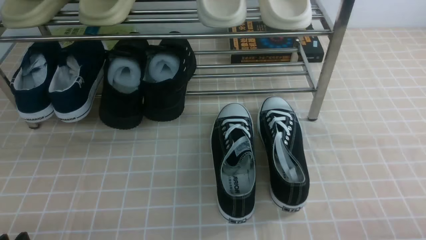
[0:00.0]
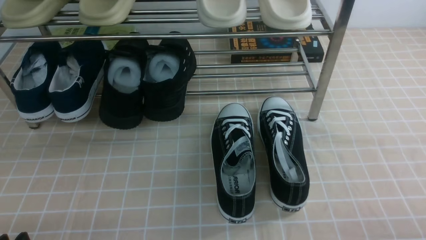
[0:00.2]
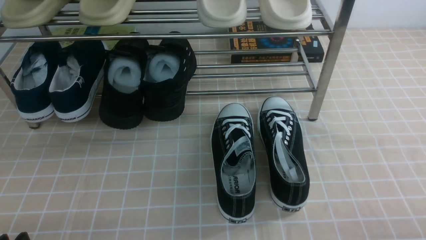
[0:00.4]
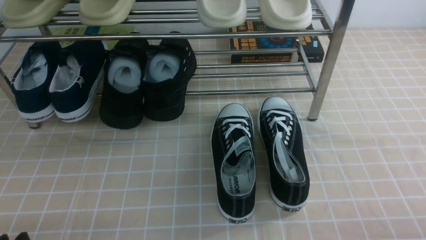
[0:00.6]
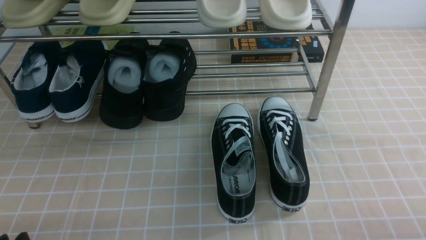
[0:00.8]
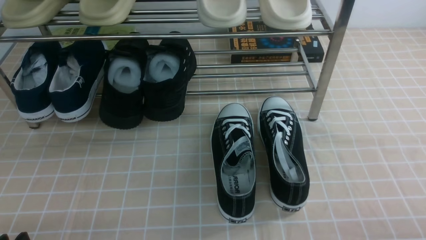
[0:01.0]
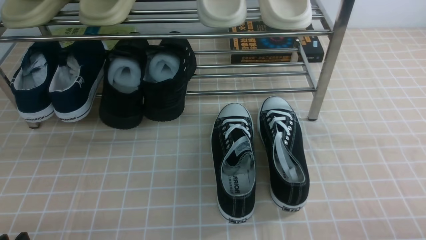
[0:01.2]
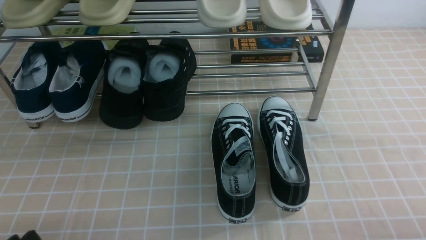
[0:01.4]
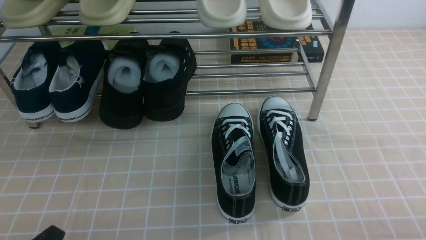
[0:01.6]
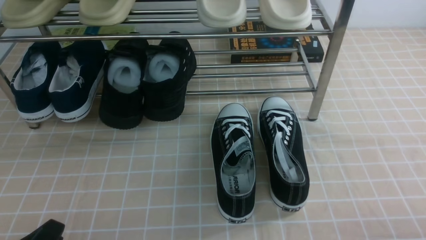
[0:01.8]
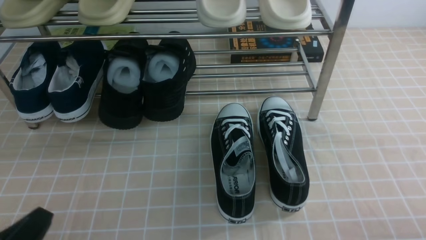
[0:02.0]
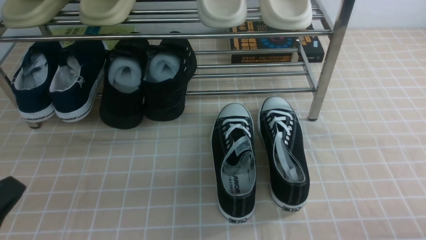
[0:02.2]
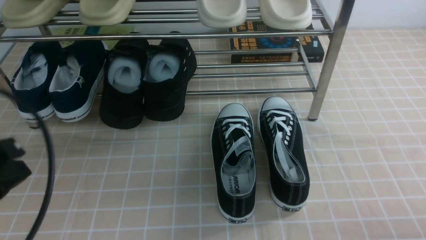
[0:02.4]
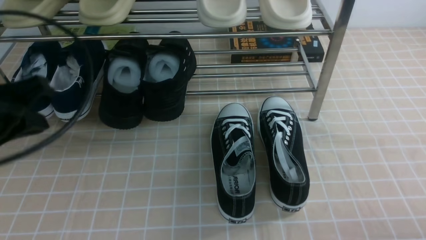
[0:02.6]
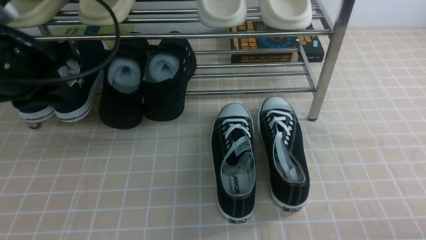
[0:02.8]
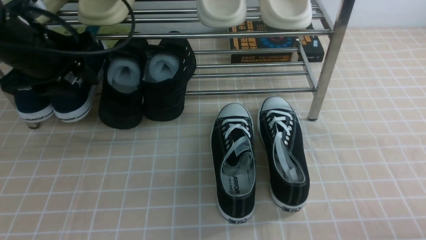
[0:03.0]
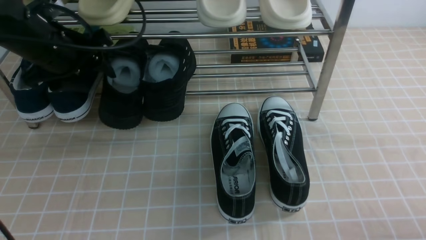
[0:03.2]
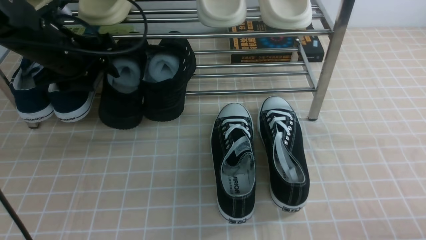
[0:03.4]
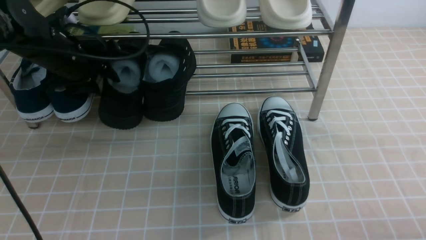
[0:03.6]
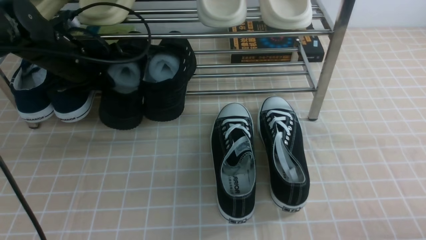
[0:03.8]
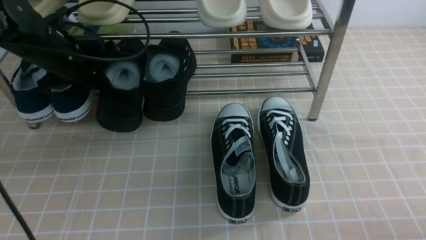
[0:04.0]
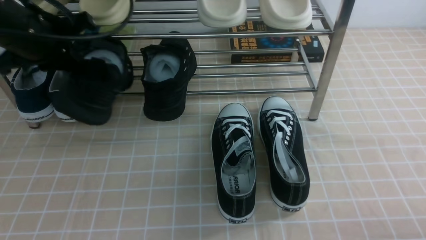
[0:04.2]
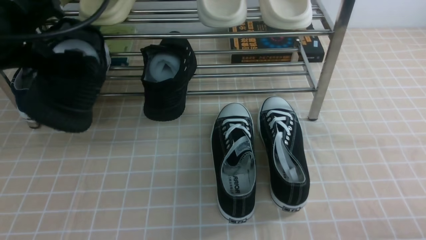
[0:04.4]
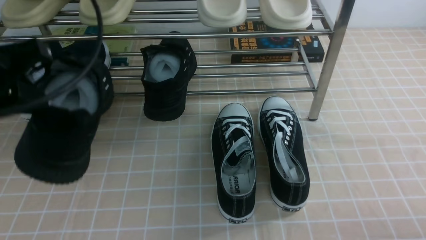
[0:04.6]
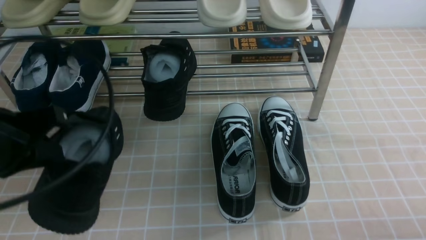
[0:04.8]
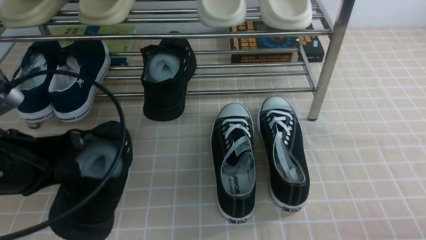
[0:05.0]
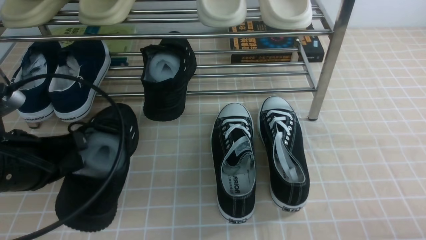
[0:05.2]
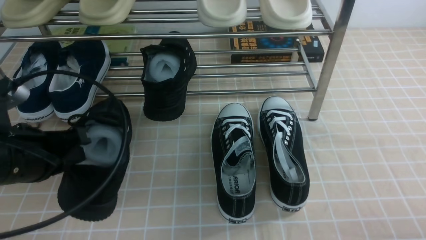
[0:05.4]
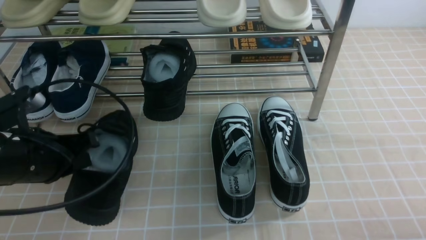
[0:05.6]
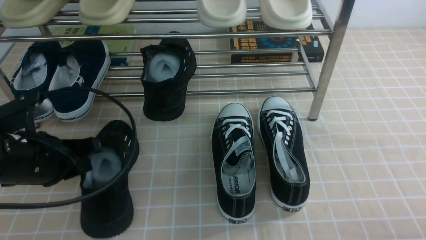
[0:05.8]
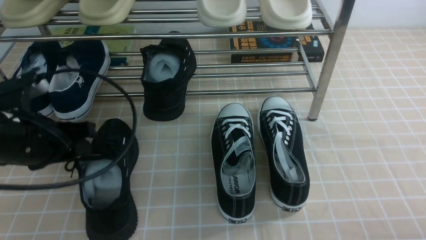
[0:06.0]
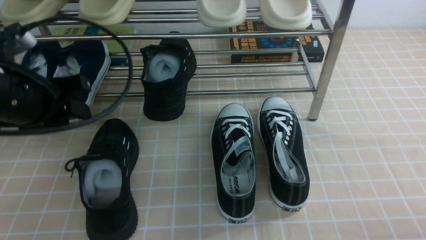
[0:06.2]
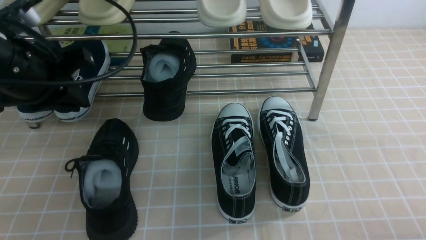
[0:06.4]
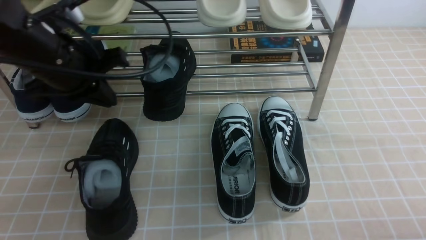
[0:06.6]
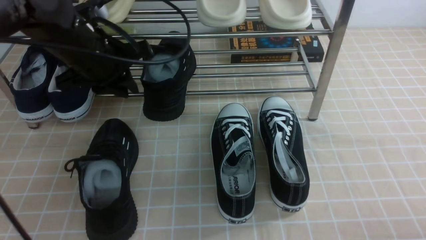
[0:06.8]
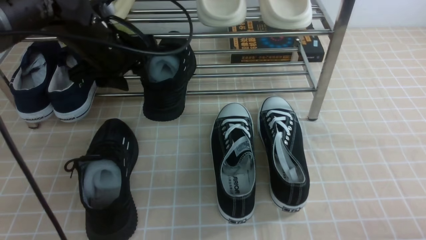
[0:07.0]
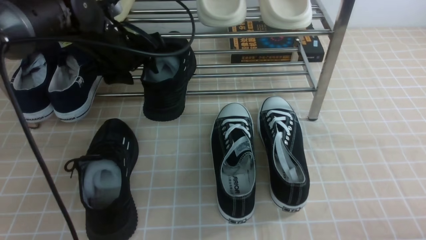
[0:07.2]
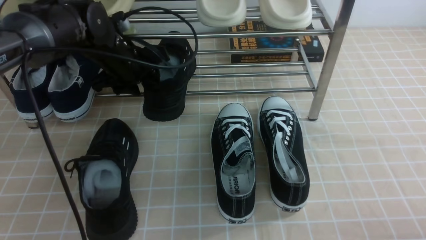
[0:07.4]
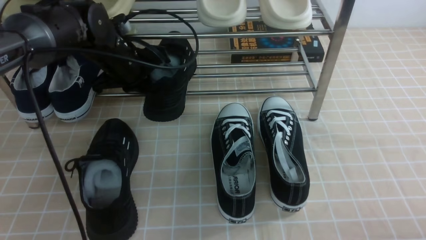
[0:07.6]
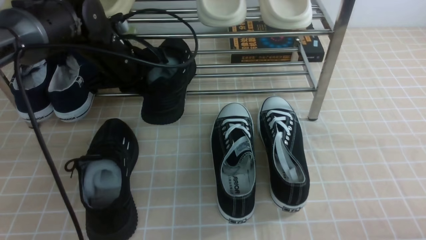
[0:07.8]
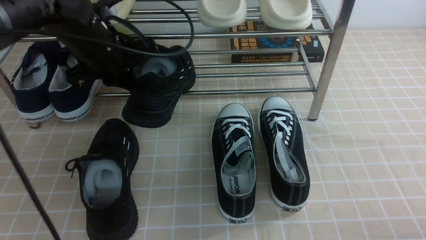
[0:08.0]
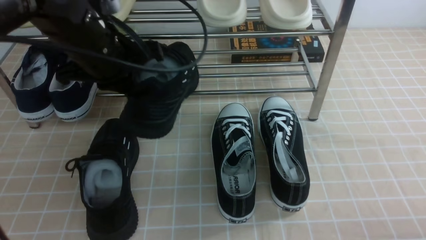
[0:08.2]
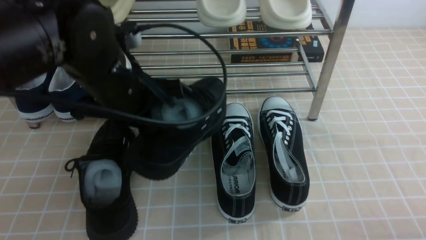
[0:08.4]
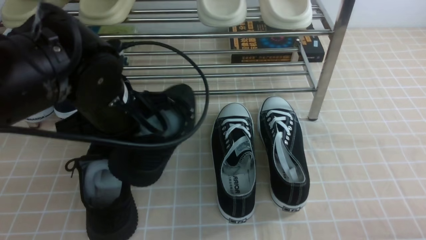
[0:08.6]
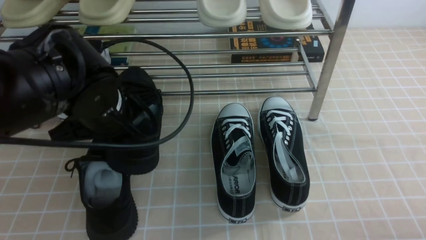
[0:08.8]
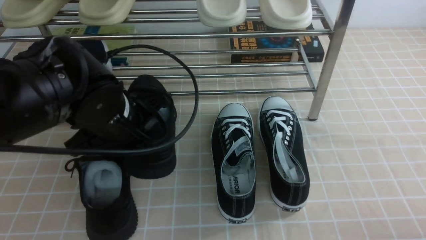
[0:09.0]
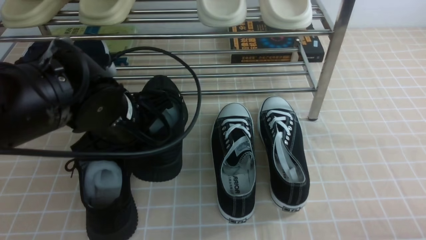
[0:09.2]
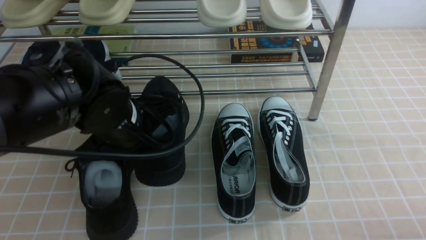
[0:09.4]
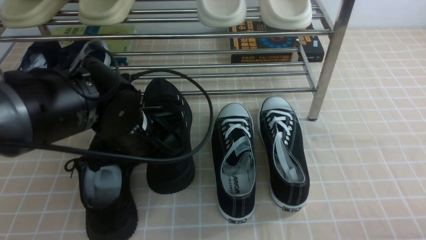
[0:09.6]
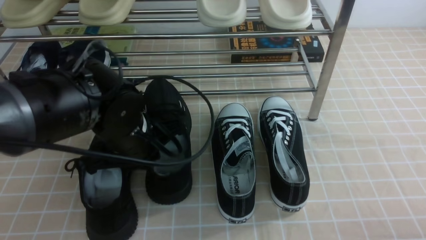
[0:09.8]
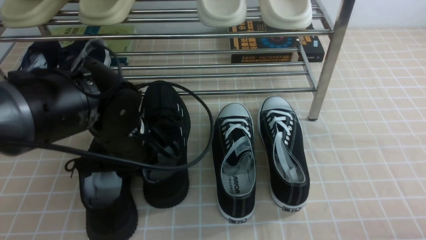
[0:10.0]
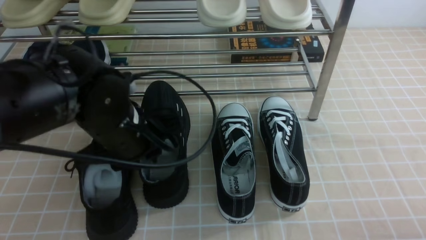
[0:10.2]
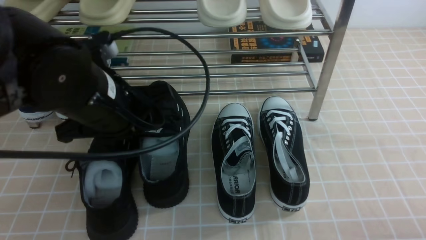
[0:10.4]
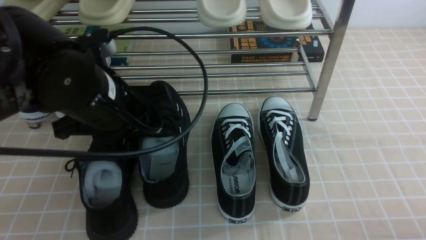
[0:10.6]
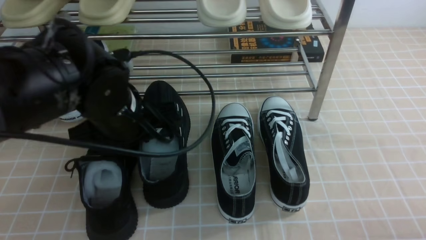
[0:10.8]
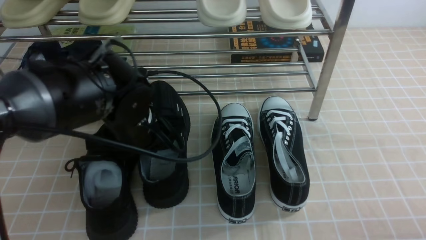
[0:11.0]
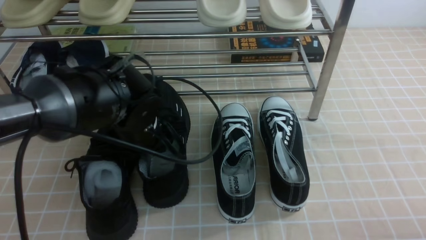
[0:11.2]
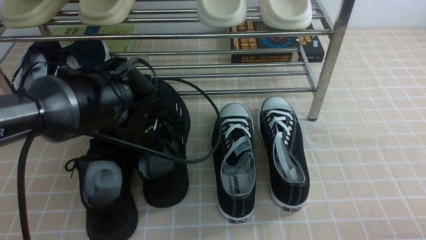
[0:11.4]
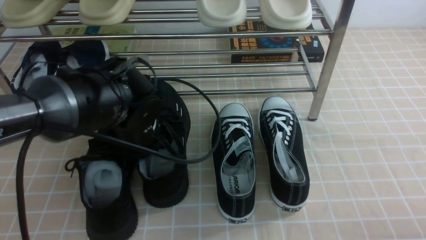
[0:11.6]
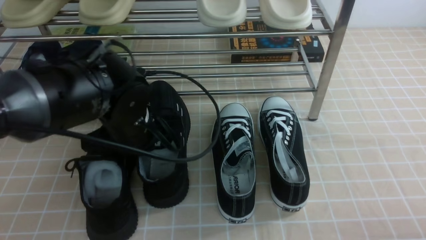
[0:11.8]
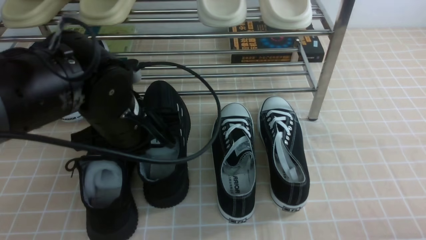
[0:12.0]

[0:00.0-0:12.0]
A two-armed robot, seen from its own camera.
Step, 0:00.0 to 0:03.6: use the left arm to clamp a shoe in the middle of the shoe rack.
Step, 0:03.8 to 0:06.2: Use your left arm to remove the clamped shoe from the shoe rack and put it down.
Step, 0:06.6 to 0:07.6: use the left arm to clamp a shoe in the middle of the shoe rack.
0:01.6 to 0:03.0: The left gripper heads forward and upward, covering approximately 30 cm, and closes, then opens again.
0:03.0 to 0:04.4: The left gripper is displaced backward and upward by approximately 10 cm, and closes up.
0:04.4 to 0:06.0: The left gripper goes roughly 10 cm downward, and opens up.
0:06.0 to 0:07.6: The left gripper shifts approximately 20 cm forward and to the right, and opens, then closes once more.
0:07.6 to 0:09.0: The left gripper is displaced backward by approximately 15 cm.
0:09.0 to 0:10.4: The left gripper opens.
0:10.4 to 0:12.0: The left gripper closes.

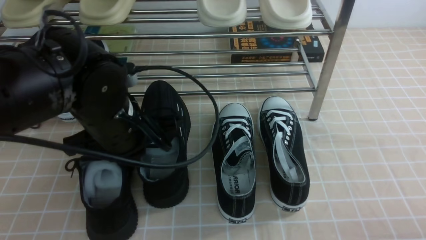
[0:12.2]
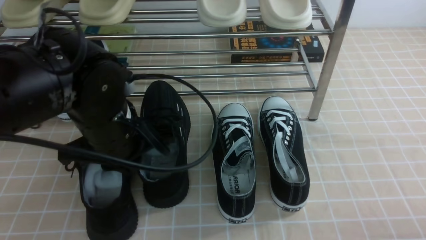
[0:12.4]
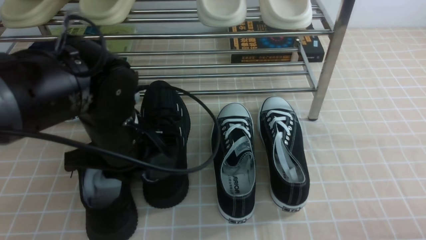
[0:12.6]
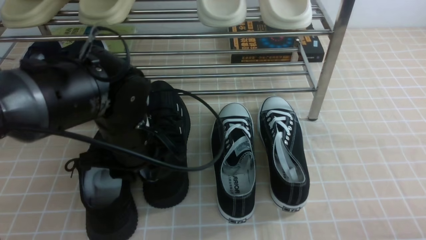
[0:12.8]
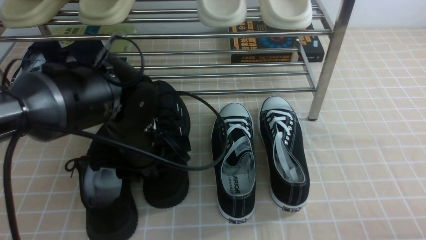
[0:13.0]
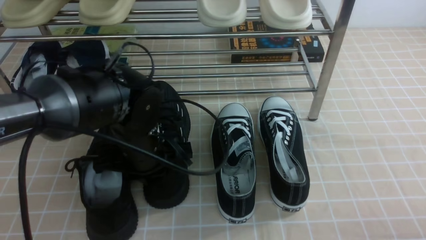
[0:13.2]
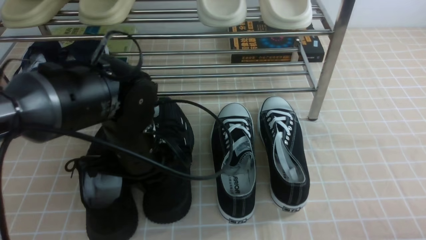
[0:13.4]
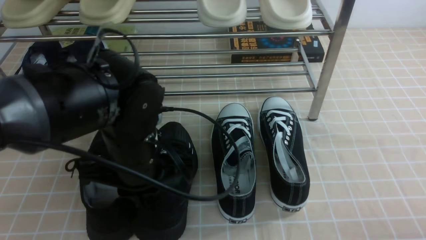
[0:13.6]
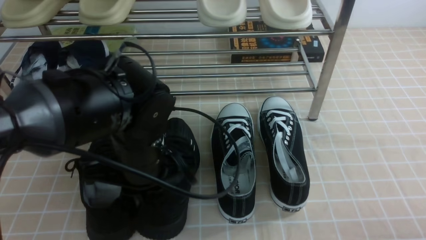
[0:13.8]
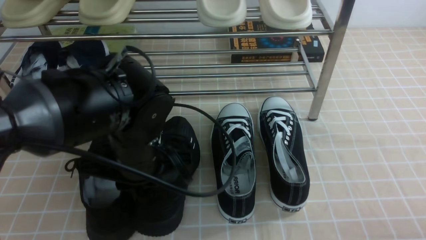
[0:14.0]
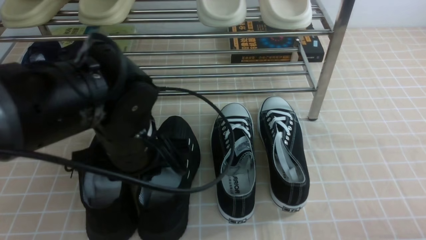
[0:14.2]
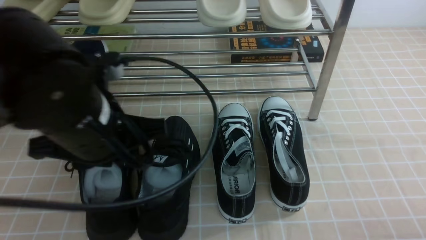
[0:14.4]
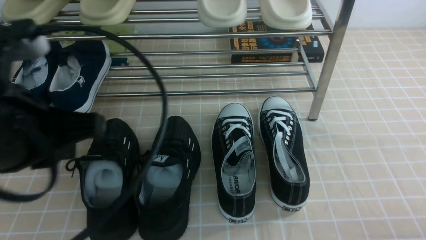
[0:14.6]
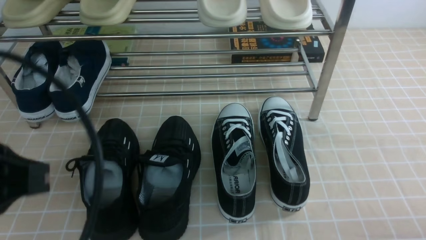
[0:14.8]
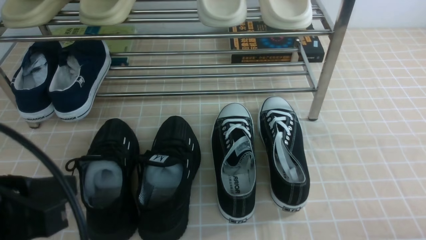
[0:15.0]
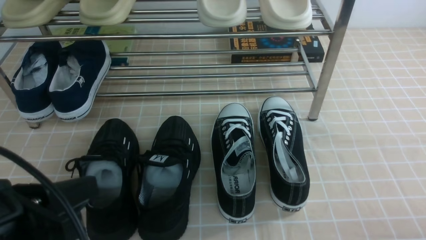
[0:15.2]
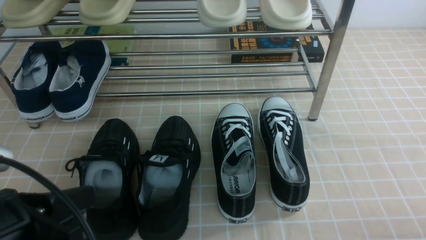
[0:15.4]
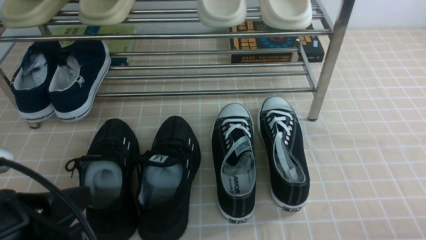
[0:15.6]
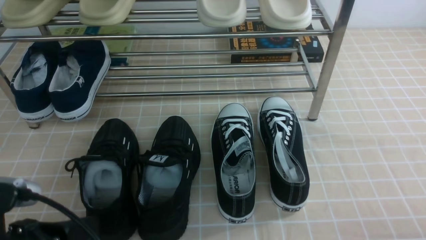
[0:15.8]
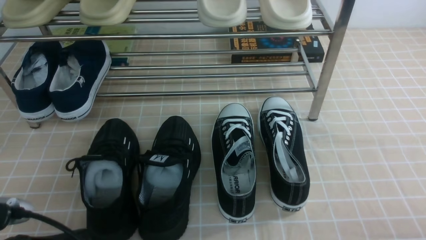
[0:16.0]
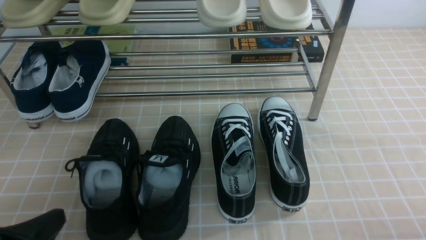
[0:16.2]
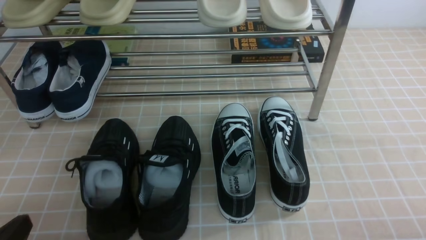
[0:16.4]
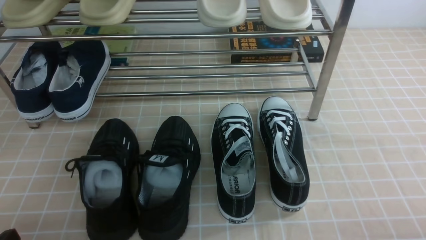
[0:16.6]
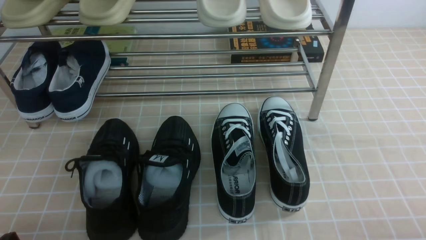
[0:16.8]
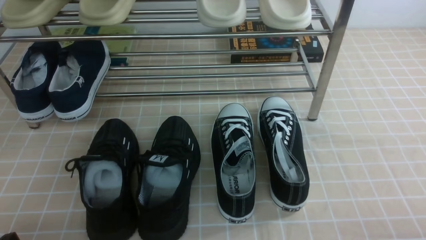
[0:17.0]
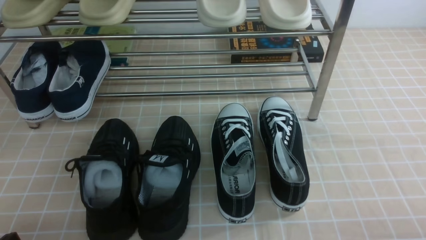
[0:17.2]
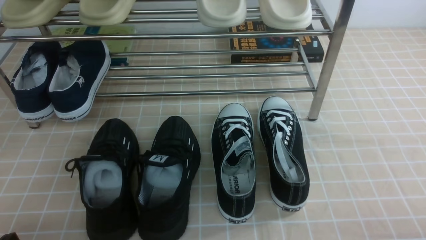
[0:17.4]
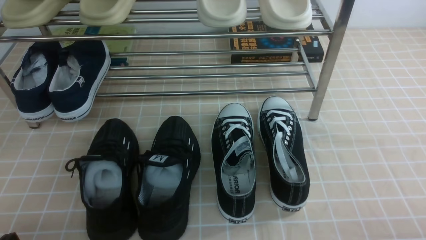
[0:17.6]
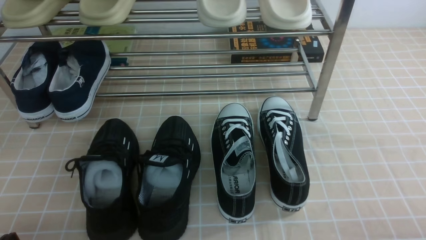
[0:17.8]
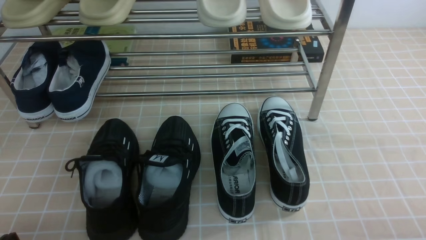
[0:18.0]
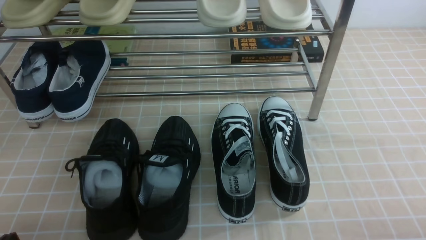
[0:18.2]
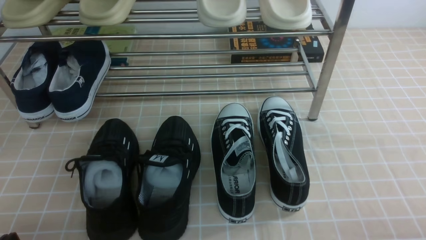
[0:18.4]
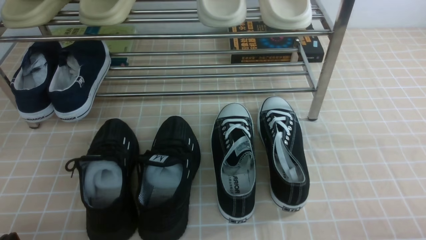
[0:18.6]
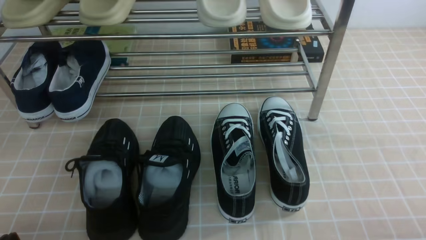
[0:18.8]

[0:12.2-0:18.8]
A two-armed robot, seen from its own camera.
Step, 0:12.2 to 0:14.4: Use your left arm to remove the clamped shoe from the shoe rack and put it down.
0:12.2 to 0:13.8: The left gripper opens, then closes again.
0:13.8 to 0:15.4: The left gripper moves backward and to the left, roughly 20 cm.
0:15.4 to 0:17.2: The left gripper heads downward and to the left, covering some 15 cm.
0:17.2 to 0:18.8: Both grippers stay put.
